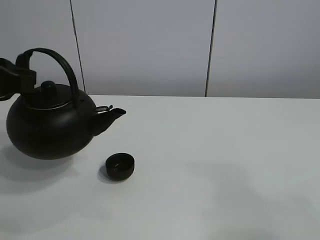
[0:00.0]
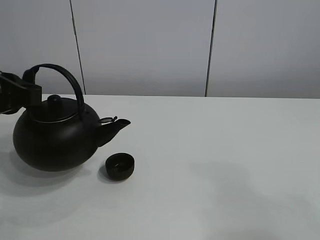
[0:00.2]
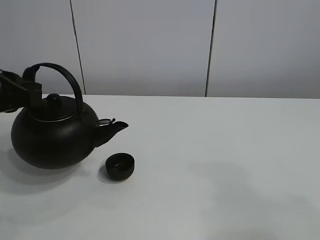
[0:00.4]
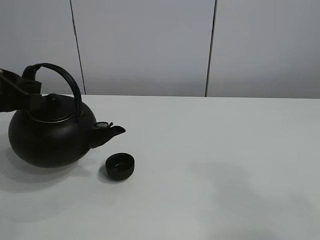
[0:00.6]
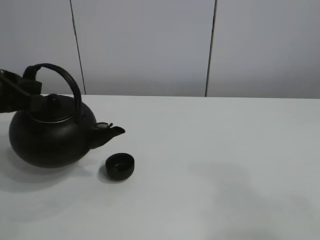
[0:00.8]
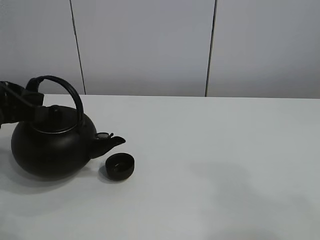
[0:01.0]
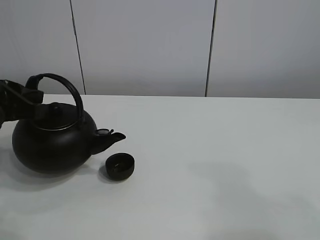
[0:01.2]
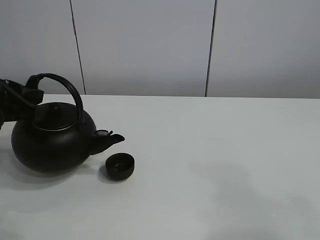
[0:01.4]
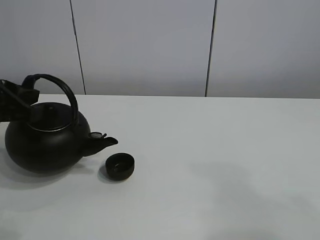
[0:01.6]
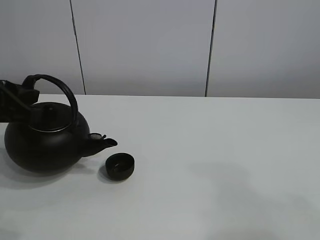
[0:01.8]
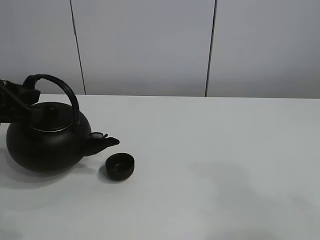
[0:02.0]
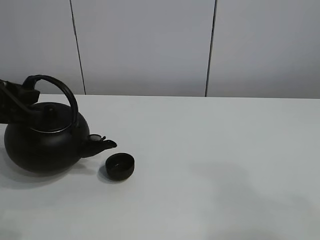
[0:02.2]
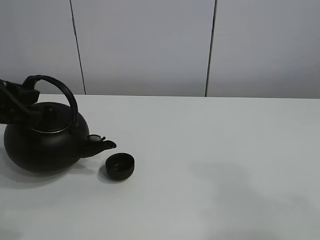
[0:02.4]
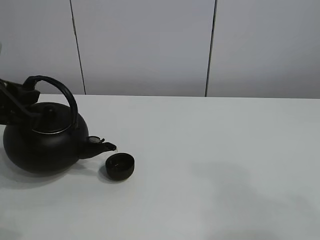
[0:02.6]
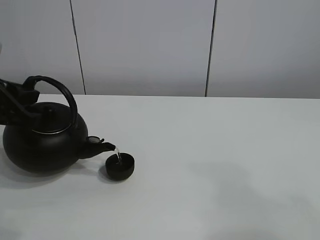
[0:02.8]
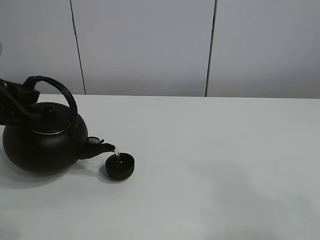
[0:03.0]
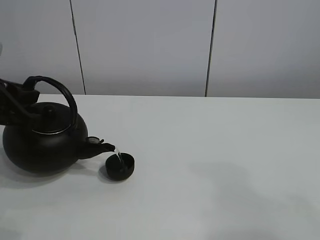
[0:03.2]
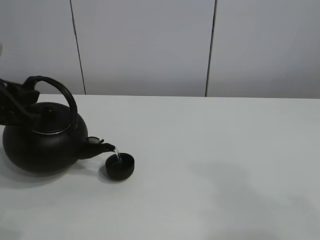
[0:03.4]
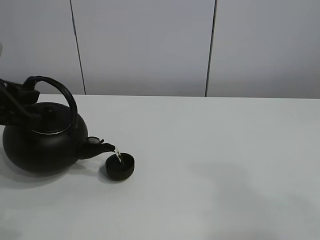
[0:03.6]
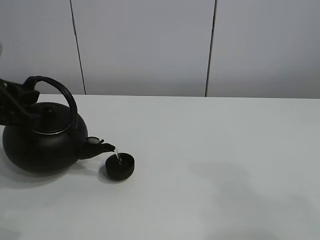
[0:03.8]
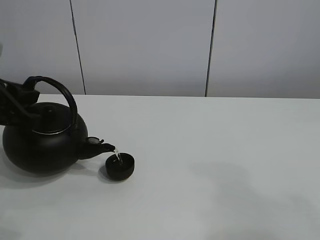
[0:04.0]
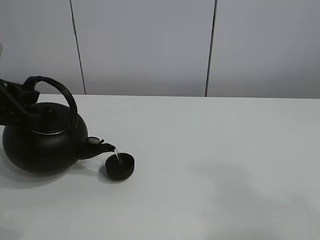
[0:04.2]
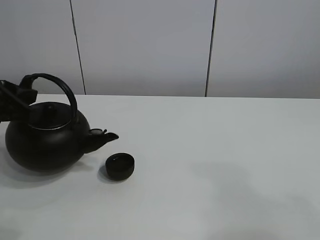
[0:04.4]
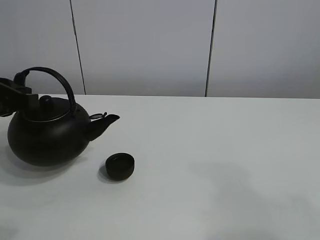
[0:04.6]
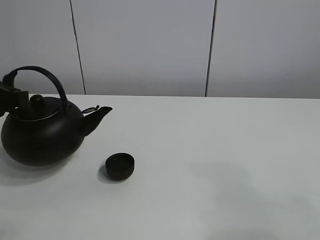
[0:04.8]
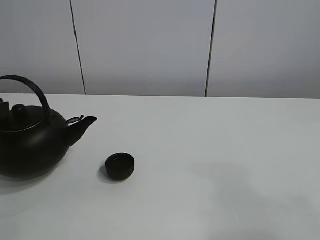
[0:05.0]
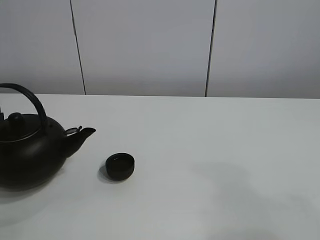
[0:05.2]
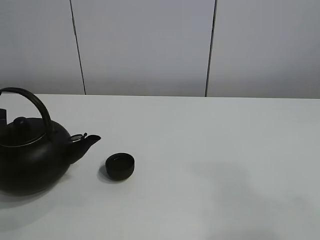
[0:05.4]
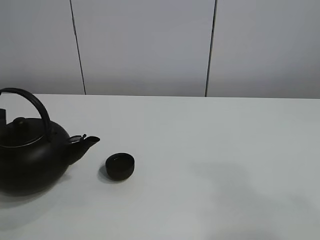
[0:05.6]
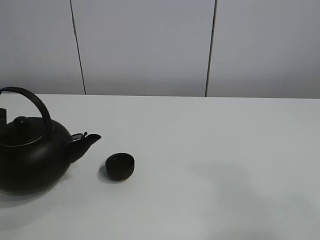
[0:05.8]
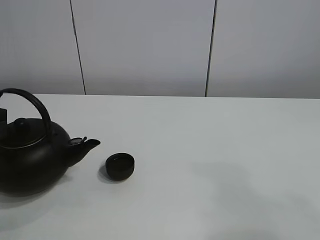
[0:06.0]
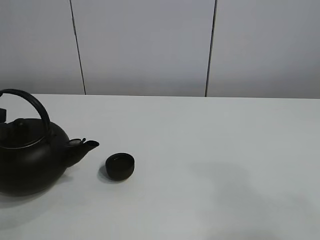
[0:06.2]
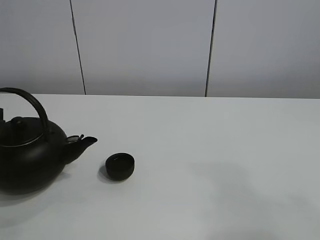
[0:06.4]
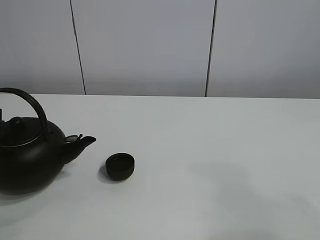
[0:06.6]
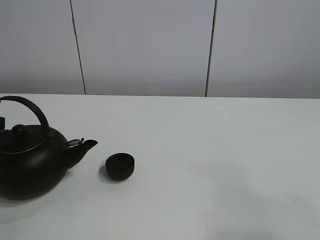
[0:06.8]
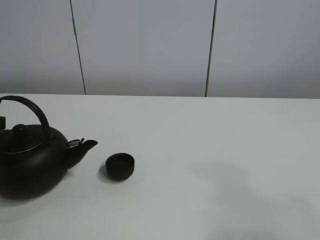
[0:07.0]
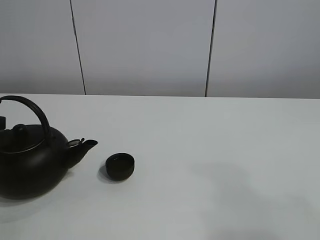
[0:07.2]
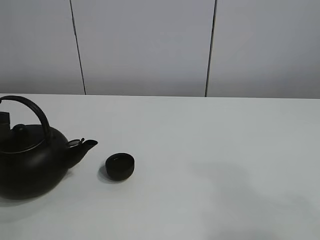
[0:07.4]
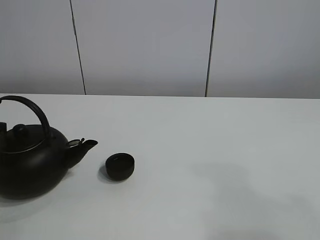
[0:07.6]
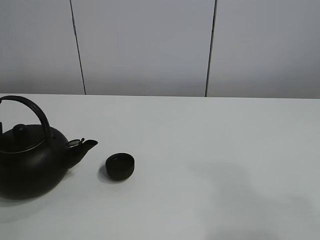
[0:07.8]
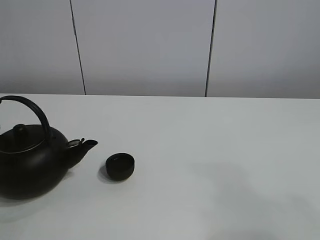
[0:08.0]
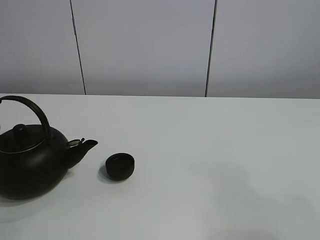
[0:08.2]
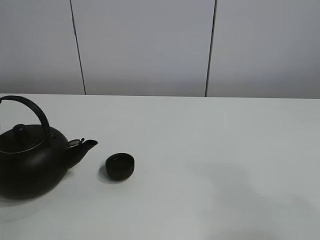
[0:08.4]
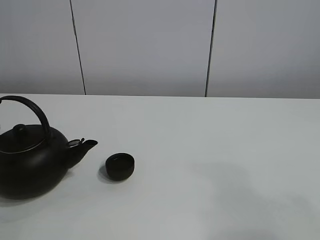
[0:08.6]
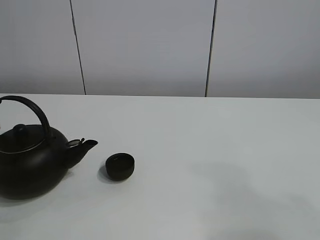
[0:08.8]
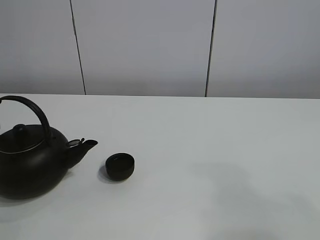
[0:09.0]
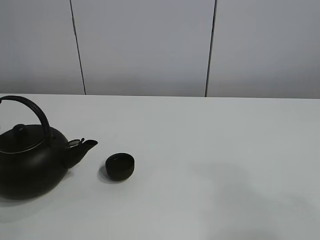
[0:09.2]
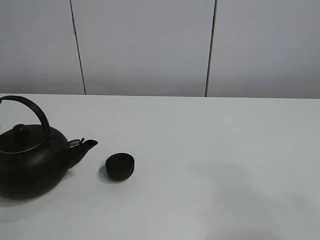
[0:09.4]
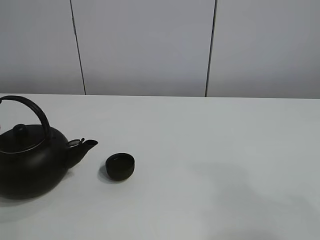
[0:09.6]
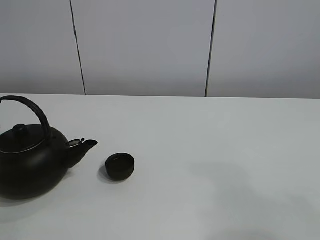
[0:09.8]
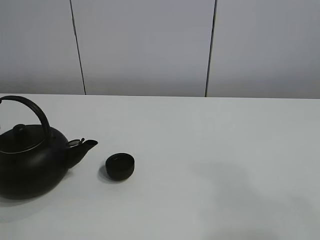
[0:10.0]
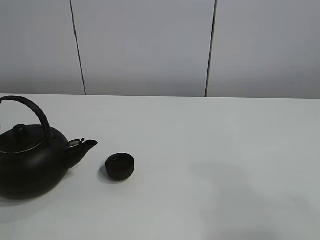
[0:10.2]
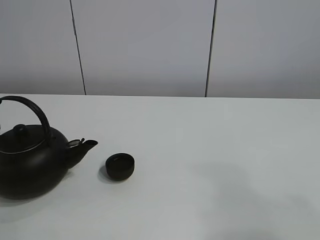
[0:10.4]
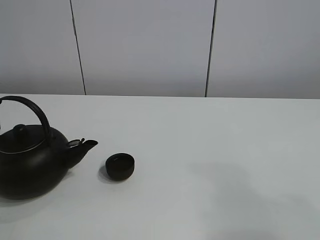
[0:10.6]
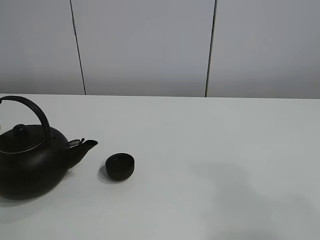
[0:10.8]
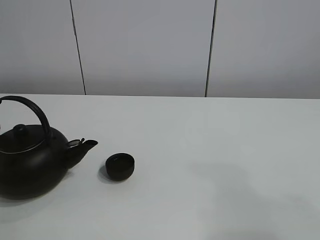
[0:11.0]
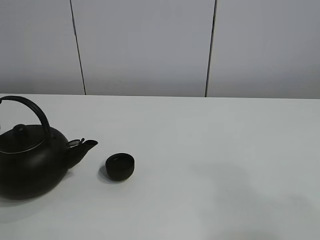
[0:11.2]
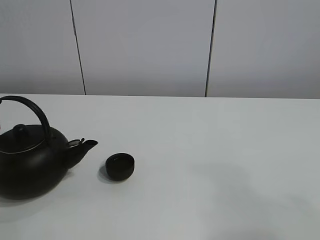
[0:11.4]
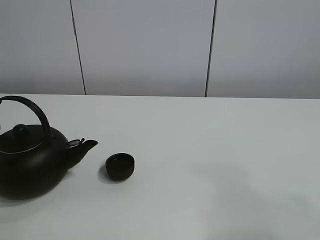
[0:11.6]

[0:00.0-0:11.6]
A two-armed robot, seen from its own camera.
Task of the whole recording: pour tea into the teacup.
Step, 0:00.0 to 0:04.2: Pour tea into the teacup with the left gripper.
0:00.0 to 0:04.4: There are only small adjustments of the grippers.
0:04.4 to 0:05.8: The left gripper moves roughly 5 cm.
0:05.8 to 0:07.2: The grippers move only a little.
